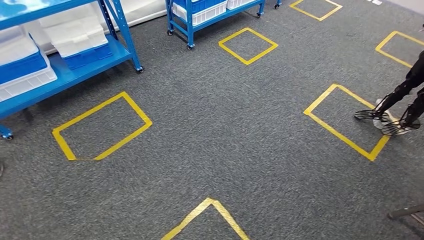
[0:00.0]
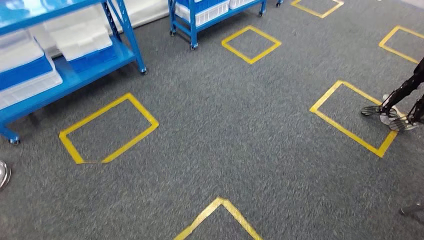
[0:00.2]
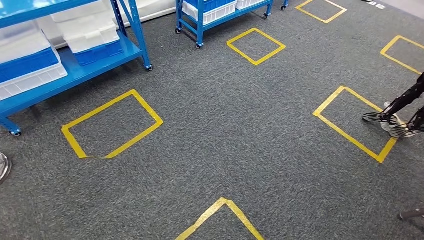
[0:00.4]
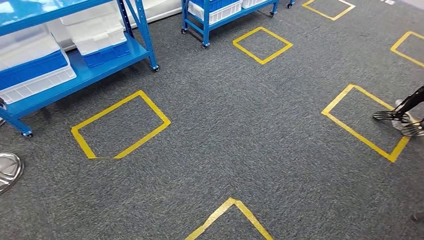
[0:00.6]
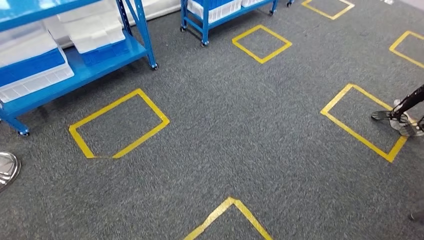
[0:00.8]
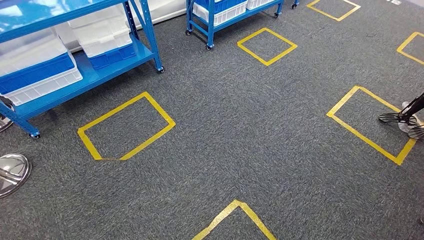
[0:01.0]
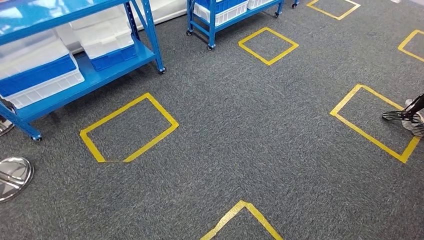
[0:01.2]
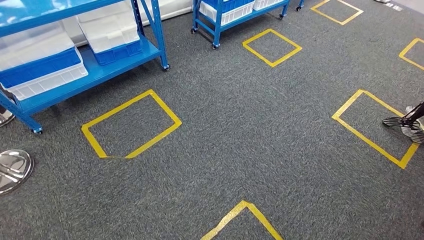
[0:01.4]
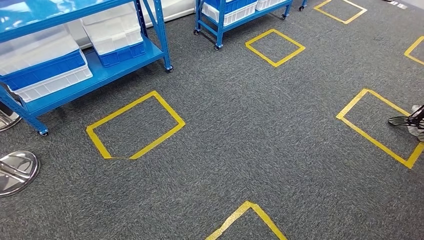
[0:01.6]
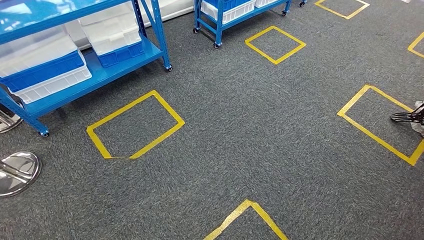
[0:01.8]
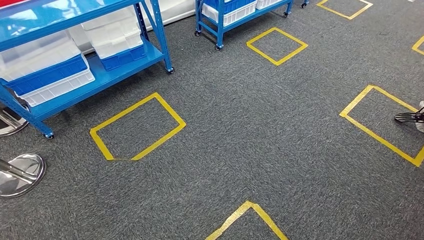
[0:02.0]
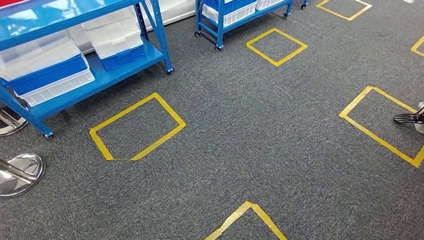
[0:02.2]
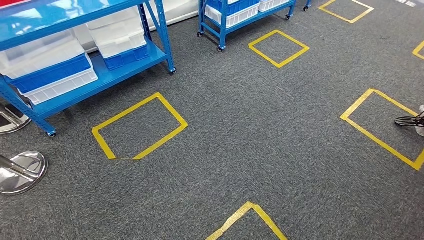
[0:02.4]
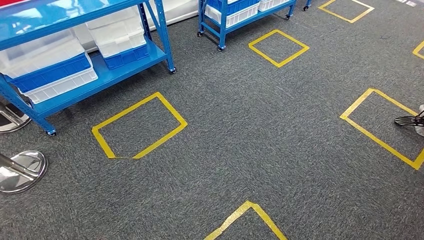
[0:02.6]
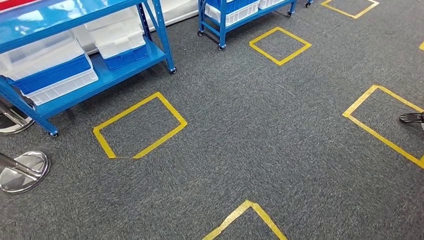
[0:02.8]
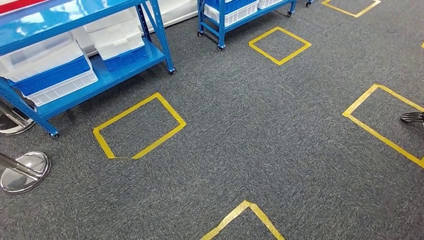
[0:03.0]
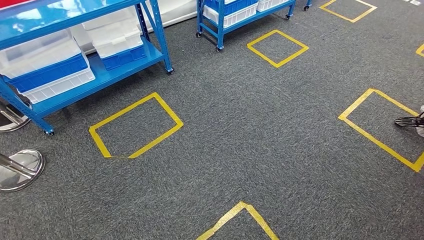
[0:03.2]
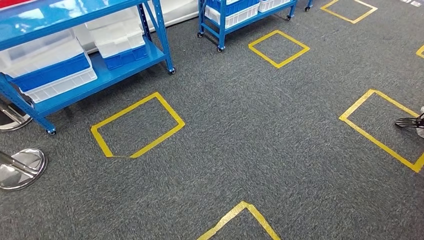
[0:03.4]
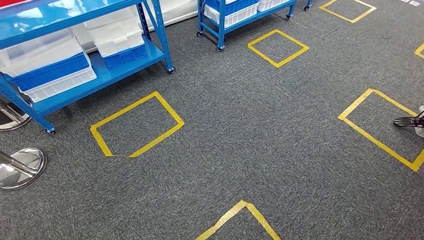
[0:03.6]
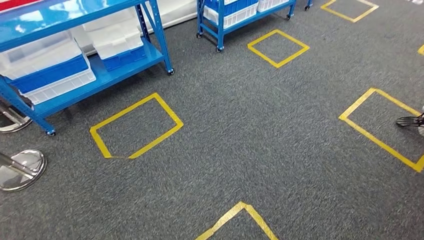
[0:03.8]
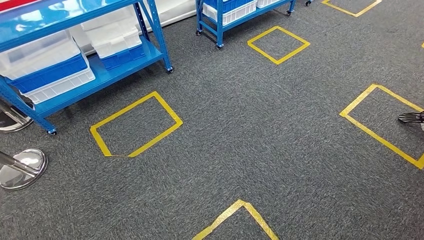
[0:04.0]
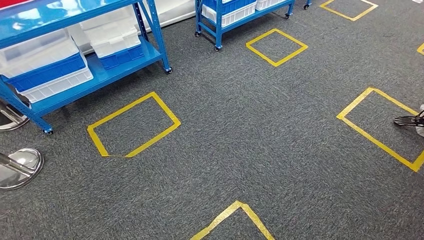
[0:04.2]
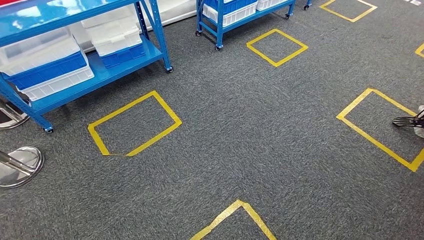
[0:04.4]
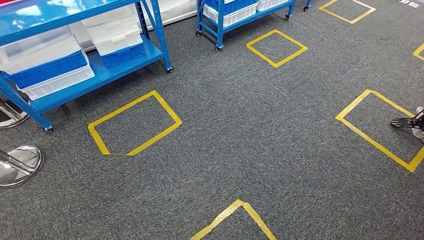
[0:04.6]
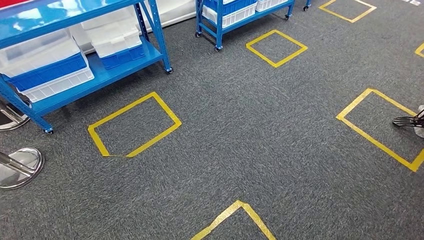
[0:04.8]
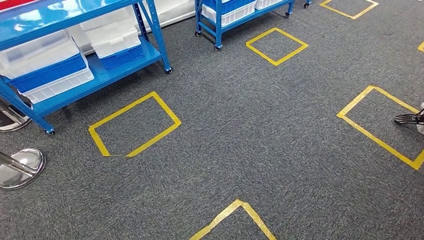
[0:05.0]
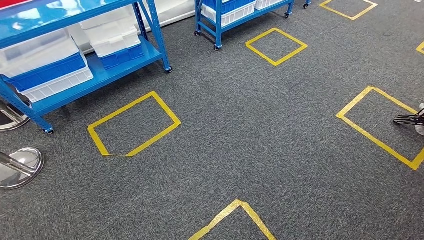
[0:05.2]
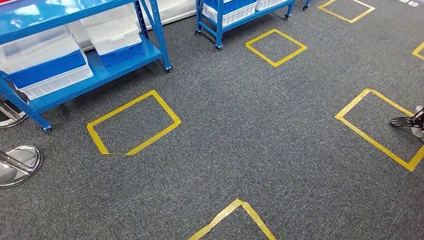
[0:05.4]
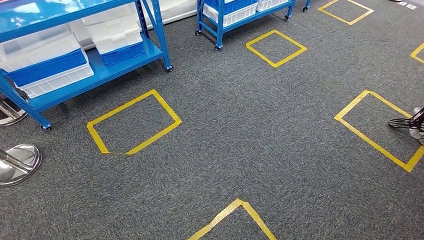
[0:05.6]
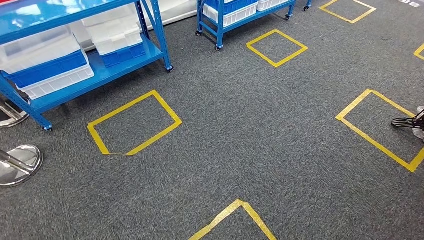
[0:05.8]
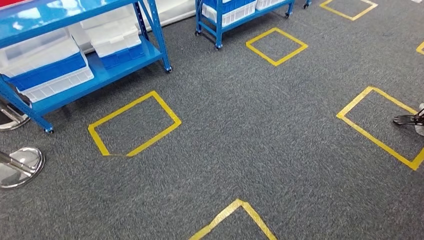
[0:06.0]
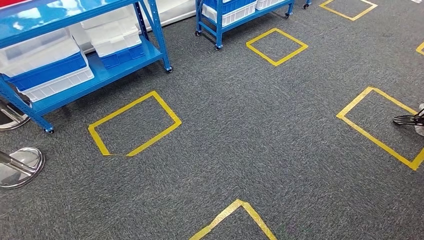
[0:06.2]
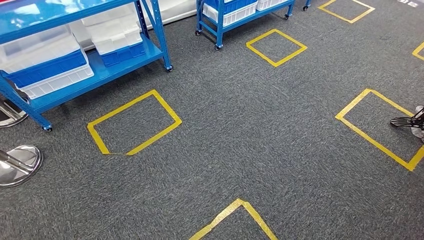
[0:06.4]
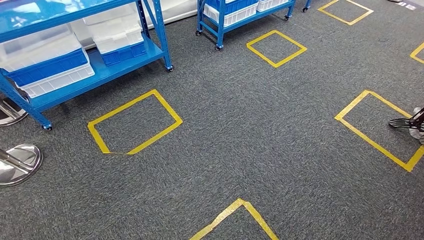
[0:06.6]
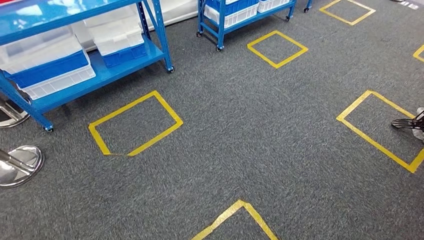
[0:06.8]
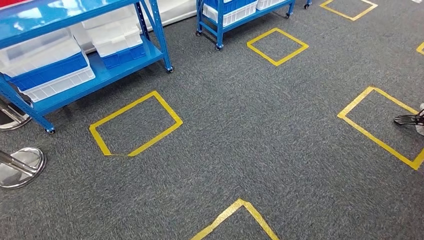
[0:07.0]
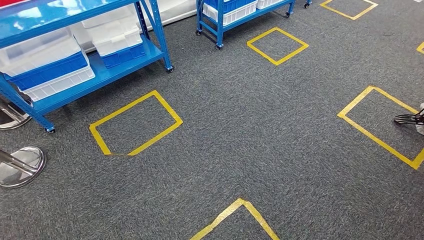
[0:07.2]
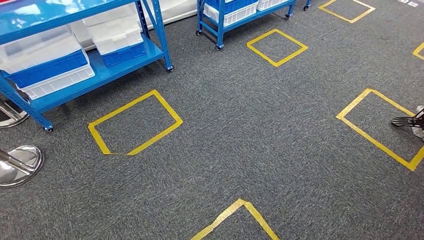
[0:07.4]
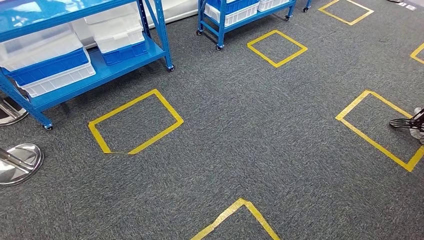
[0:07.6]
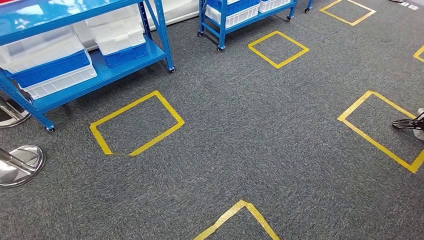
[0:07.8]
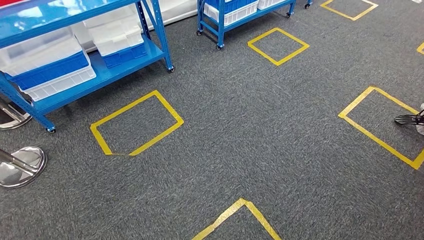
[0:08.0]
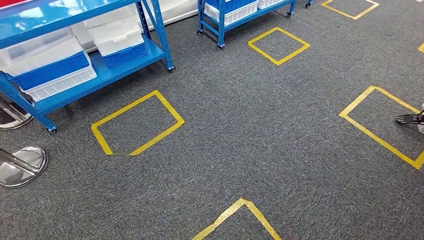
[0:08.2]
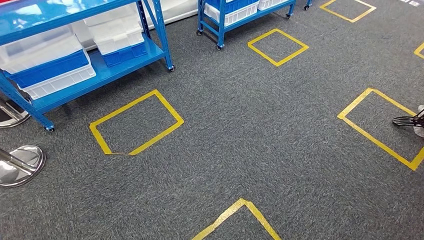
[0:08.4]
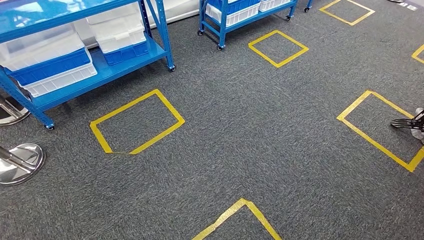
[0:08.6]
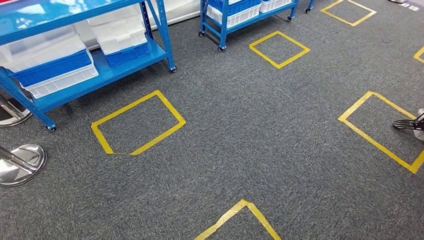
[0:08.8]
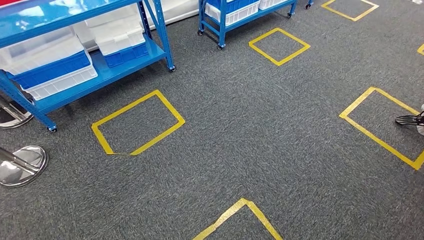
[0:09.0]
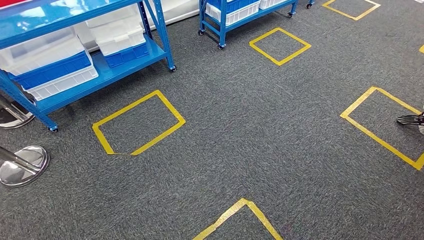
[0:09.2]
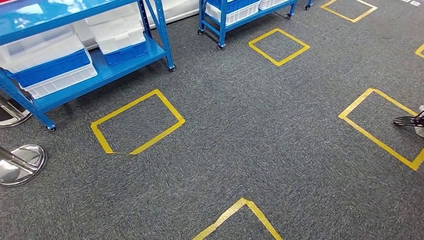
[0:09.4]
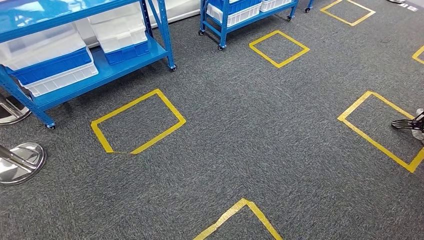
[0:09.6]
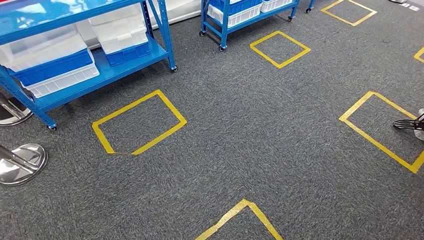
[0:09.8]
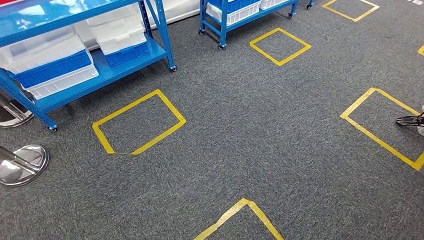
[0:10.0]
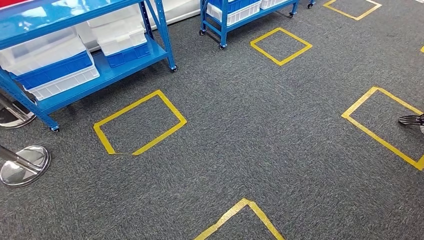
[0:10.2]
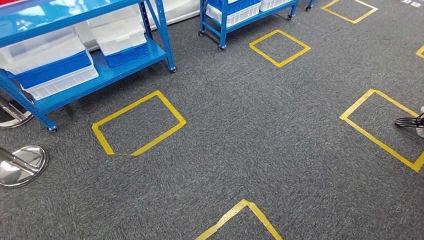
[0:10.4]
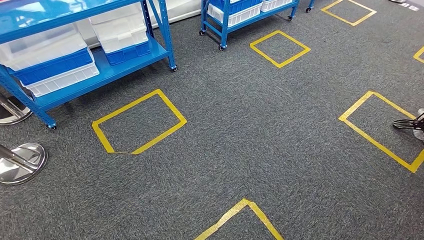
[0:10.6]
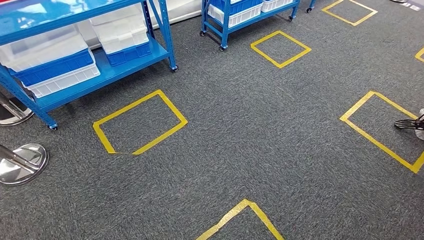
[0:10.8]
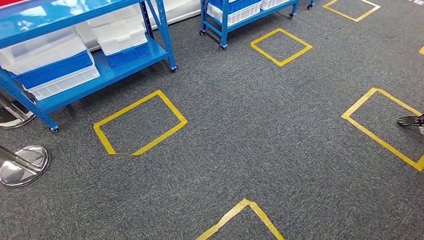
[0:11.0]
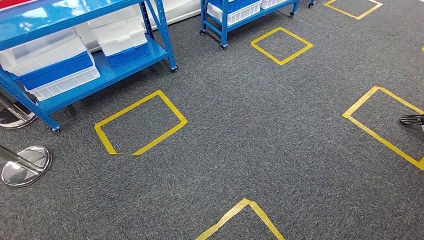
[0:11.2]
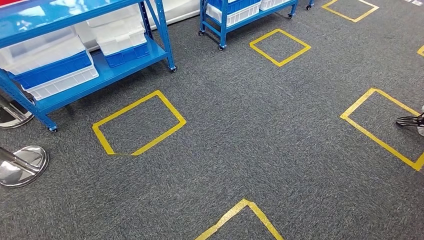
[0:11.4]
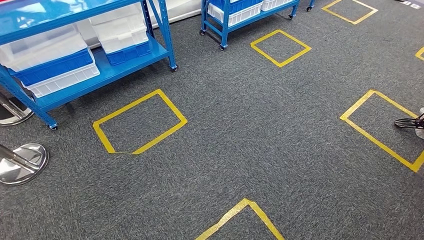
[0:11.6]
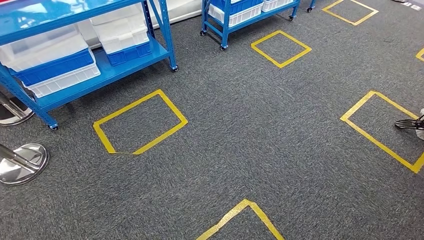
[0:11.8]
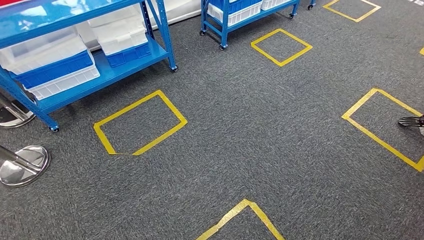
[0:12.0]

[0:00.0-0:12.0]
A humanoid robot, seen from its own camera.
0:01.6 to 0:12.0: Both hands stay put.

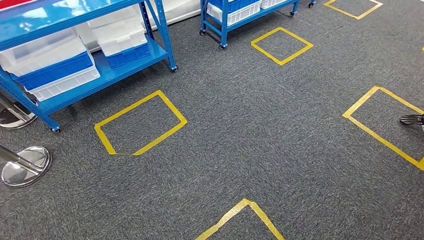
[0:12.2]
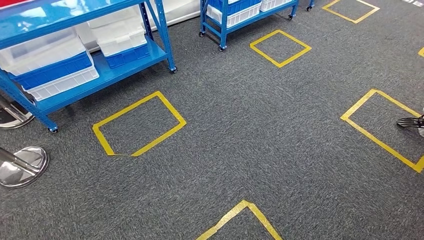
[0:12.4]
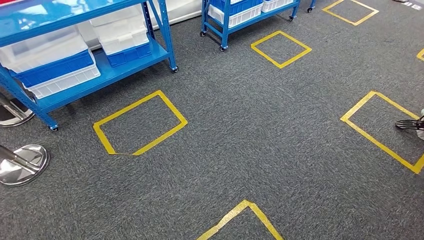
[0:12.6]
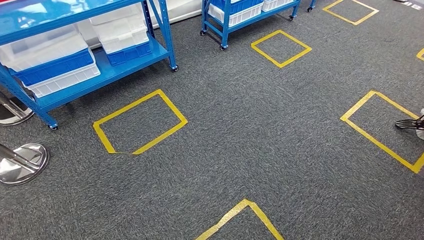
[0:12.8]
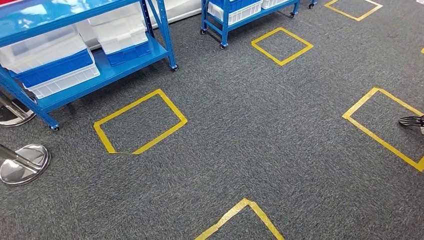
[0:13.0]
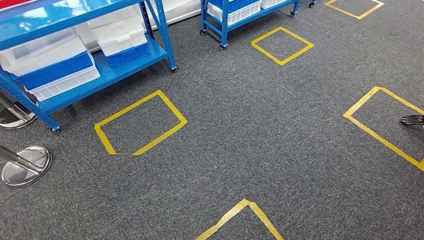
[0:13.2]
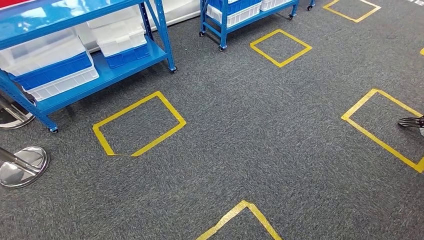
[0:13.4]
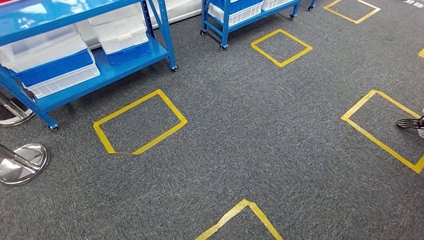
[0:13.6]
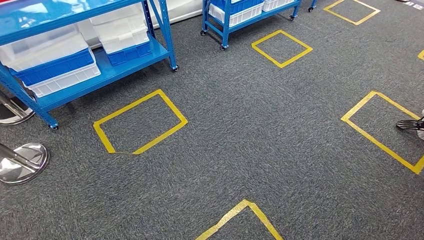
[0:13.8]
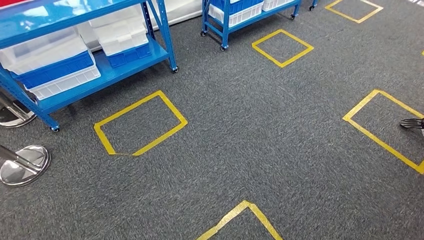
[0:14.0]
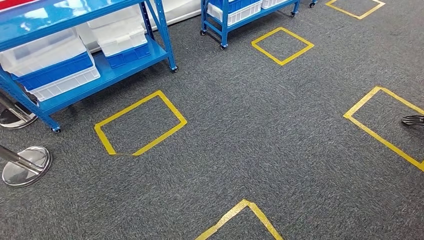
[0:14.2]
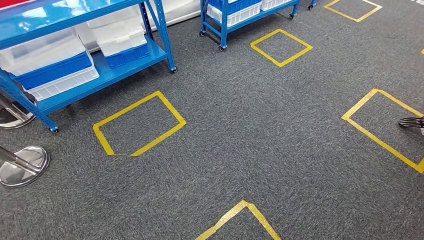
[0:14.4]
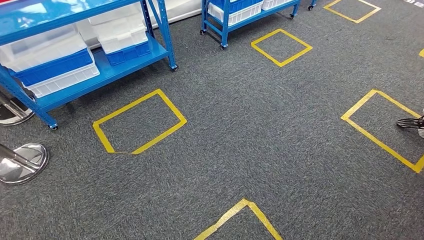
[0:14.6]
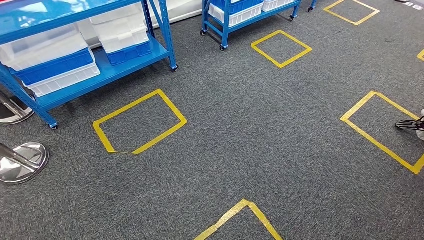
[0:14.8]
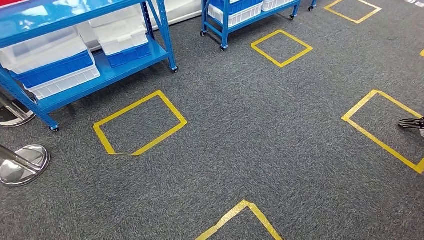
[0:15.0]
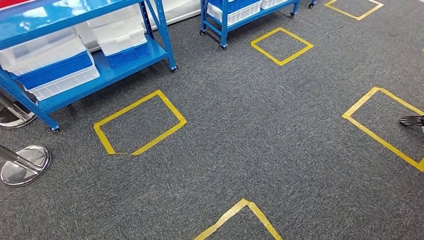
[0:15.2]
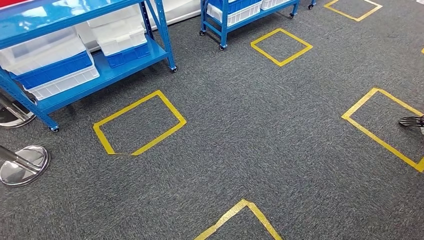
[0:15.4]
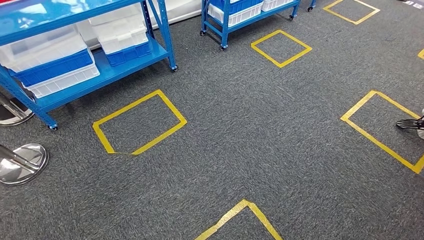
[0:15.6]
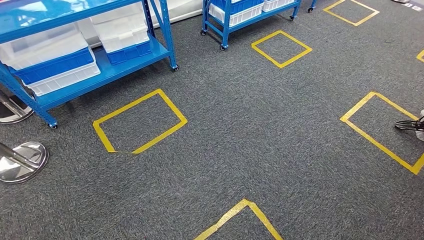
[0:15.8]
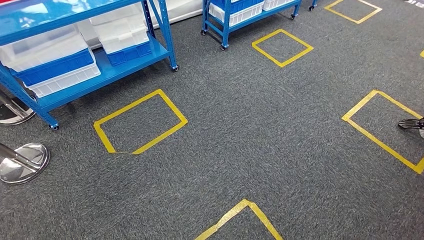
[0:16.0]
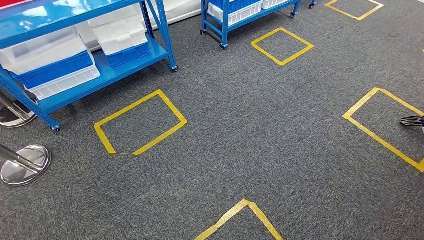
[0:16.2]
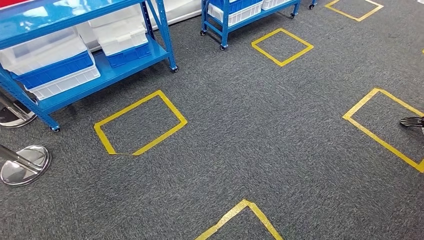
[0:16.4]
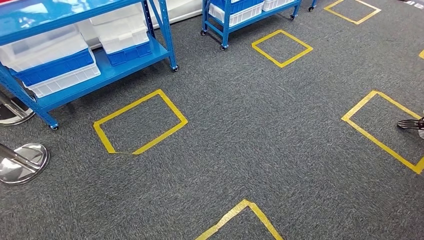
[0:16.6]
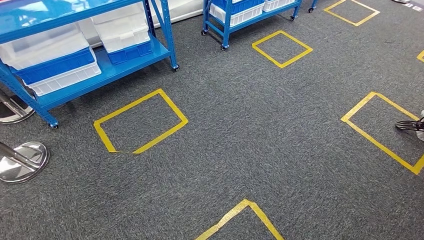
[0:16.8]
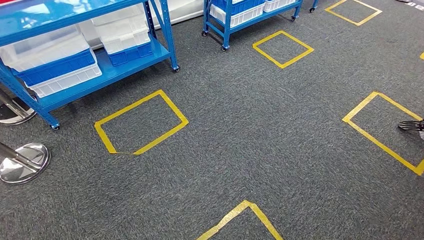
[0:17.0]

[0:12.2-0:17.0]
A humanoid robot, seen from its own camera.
0:12.2 to 0:17.0: Both hands stay about where they are.
